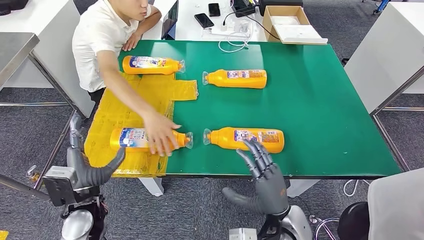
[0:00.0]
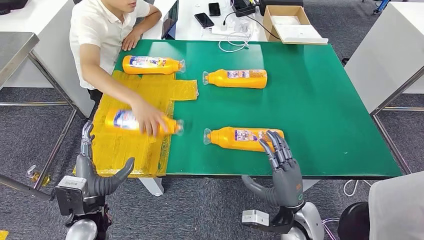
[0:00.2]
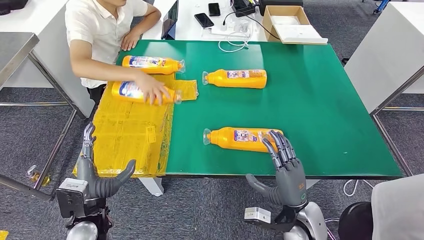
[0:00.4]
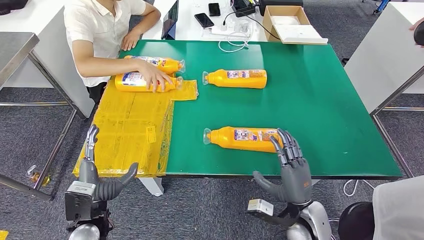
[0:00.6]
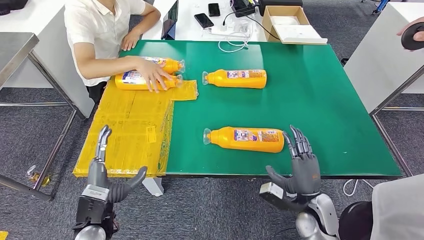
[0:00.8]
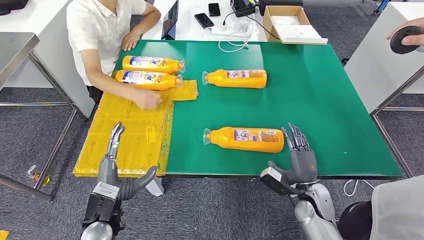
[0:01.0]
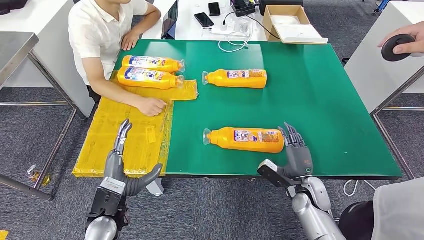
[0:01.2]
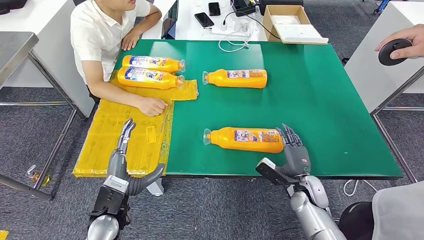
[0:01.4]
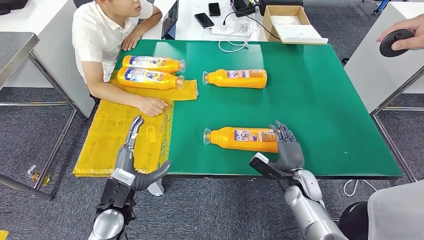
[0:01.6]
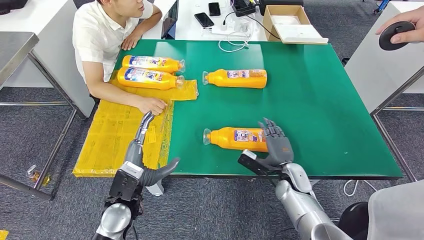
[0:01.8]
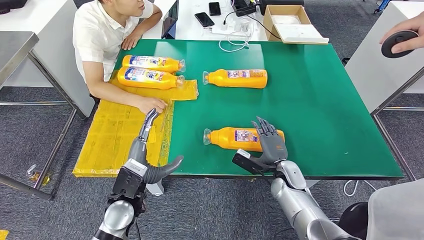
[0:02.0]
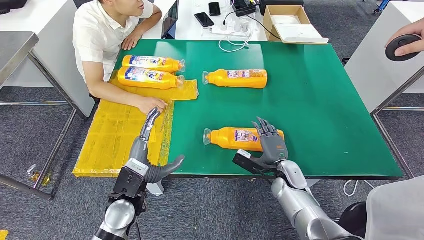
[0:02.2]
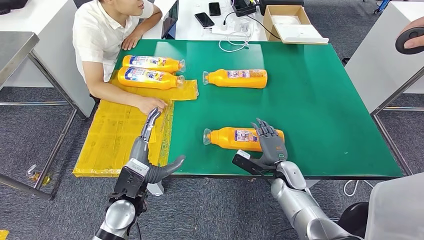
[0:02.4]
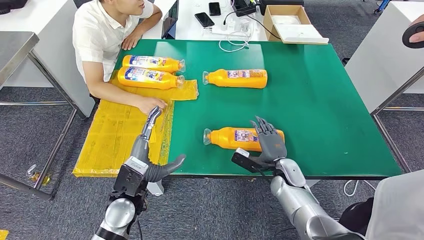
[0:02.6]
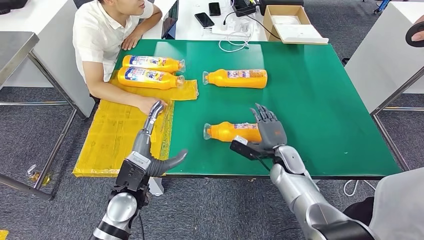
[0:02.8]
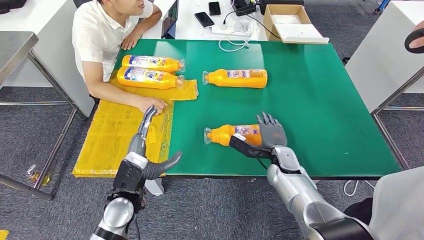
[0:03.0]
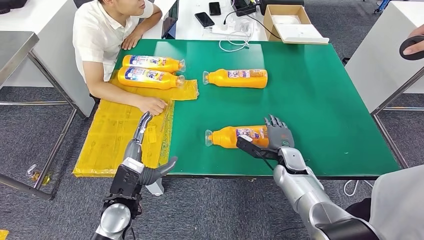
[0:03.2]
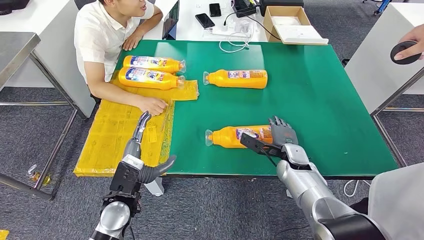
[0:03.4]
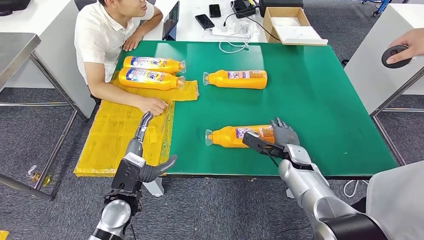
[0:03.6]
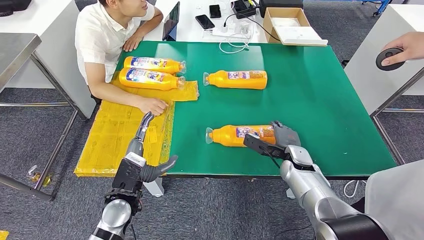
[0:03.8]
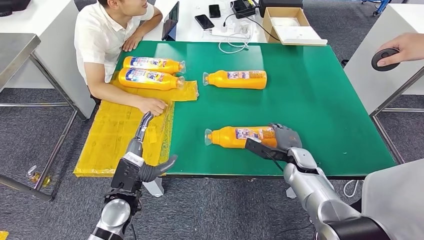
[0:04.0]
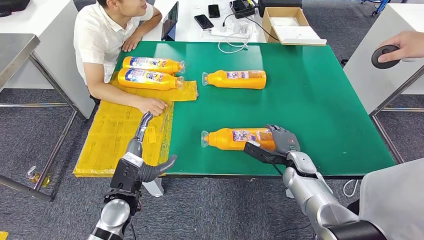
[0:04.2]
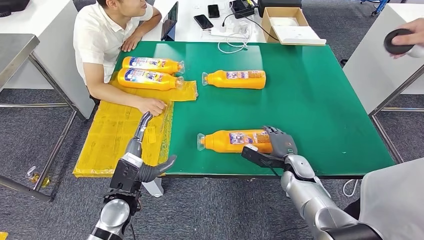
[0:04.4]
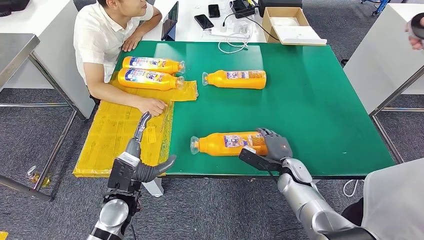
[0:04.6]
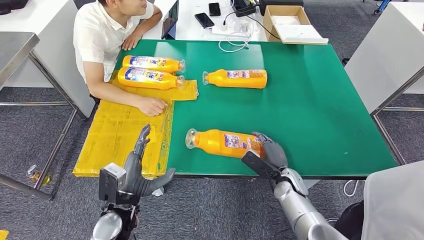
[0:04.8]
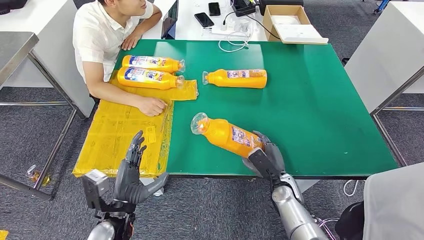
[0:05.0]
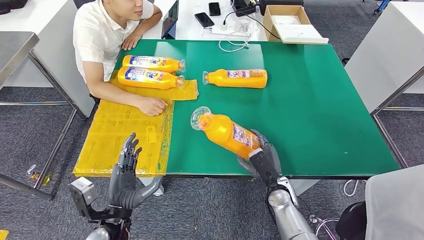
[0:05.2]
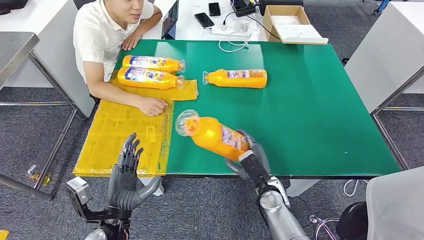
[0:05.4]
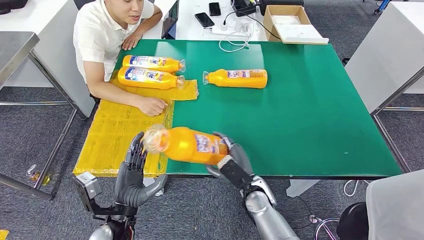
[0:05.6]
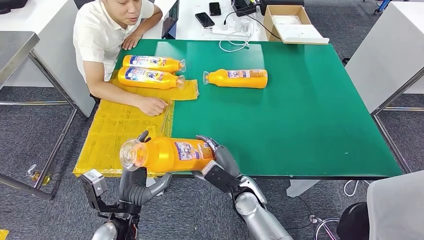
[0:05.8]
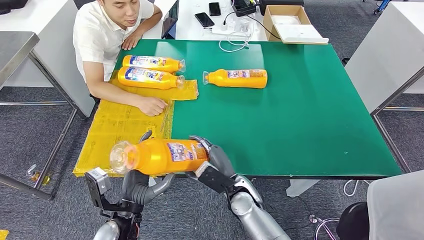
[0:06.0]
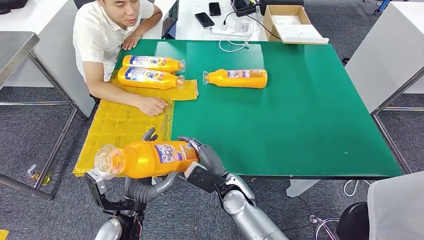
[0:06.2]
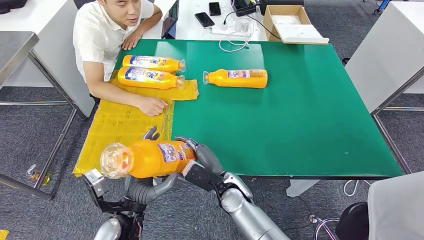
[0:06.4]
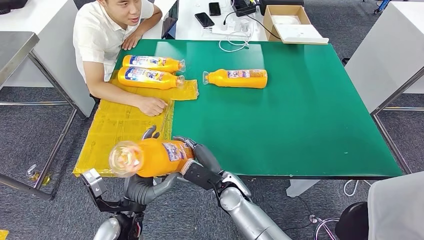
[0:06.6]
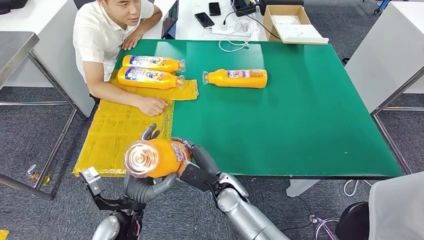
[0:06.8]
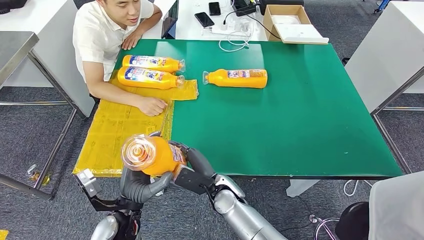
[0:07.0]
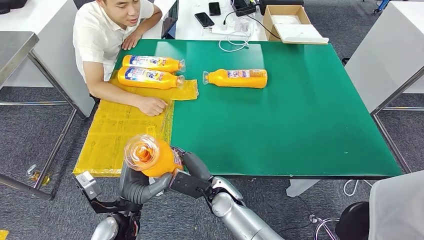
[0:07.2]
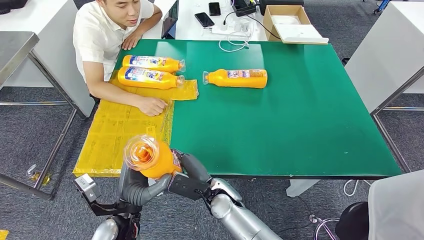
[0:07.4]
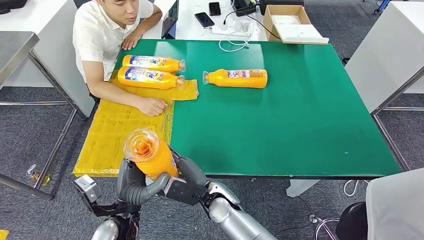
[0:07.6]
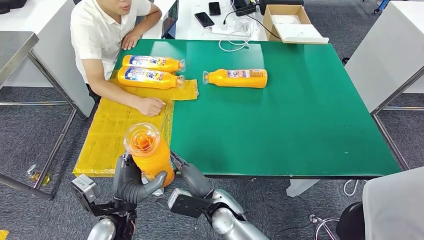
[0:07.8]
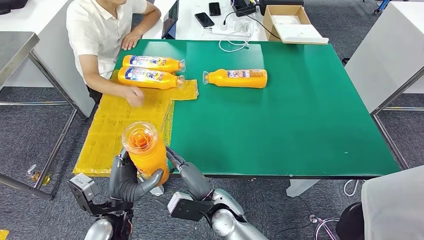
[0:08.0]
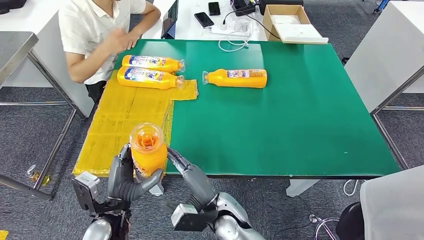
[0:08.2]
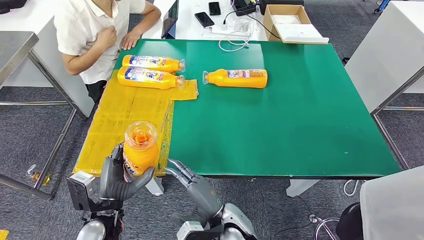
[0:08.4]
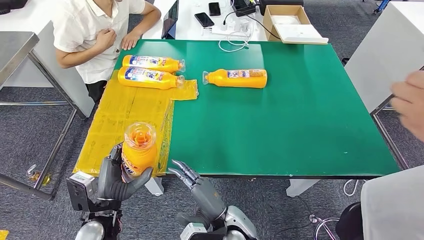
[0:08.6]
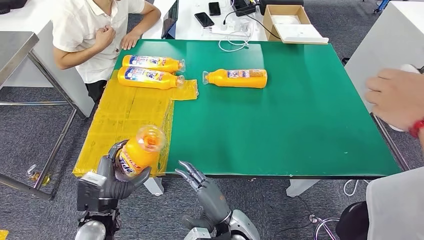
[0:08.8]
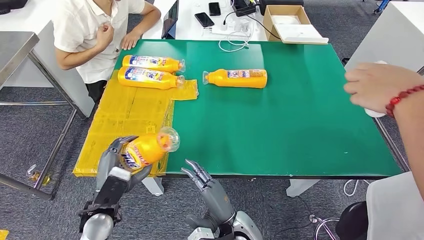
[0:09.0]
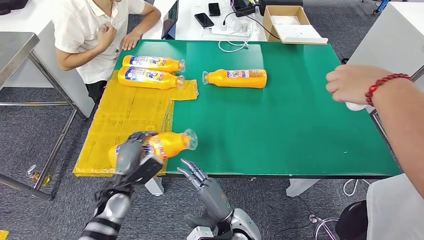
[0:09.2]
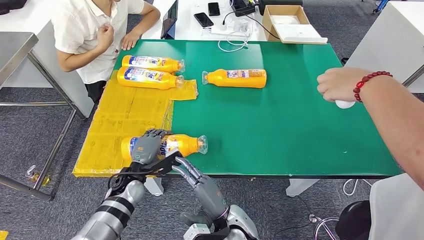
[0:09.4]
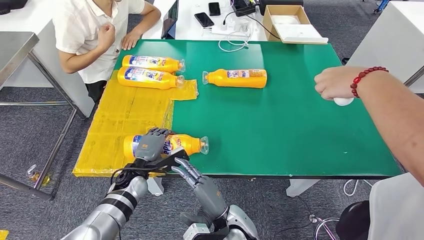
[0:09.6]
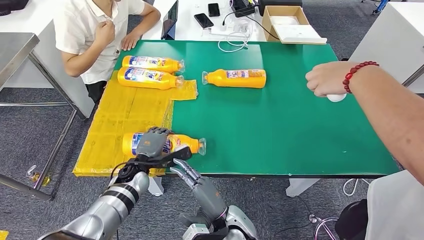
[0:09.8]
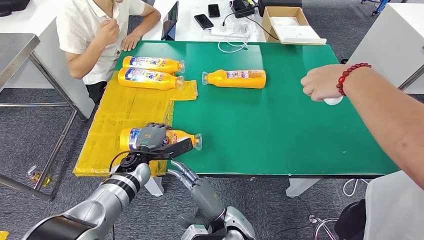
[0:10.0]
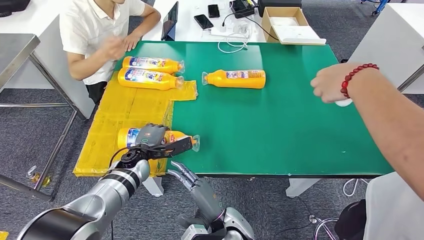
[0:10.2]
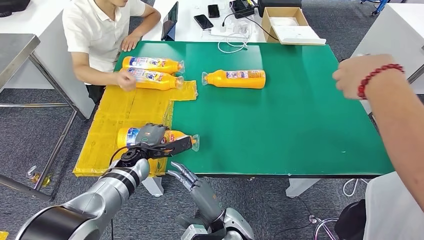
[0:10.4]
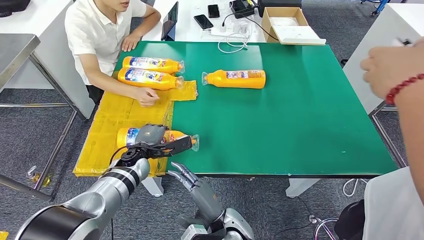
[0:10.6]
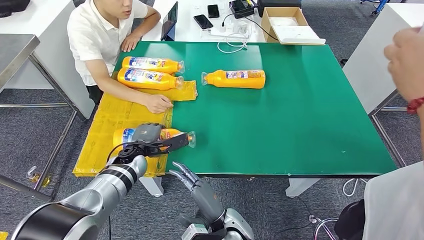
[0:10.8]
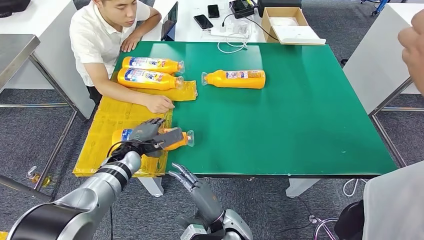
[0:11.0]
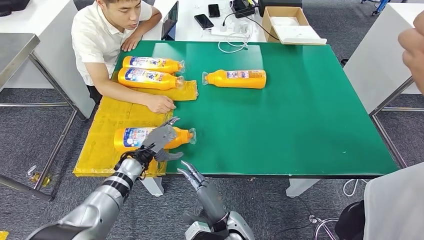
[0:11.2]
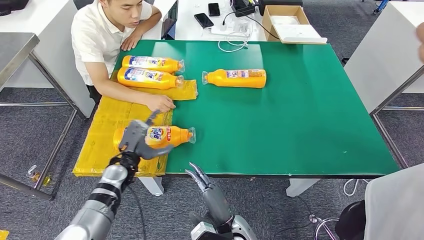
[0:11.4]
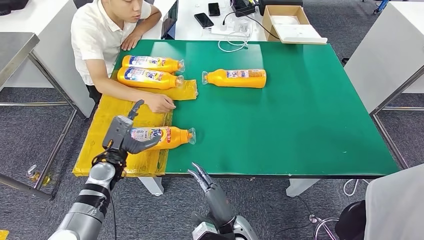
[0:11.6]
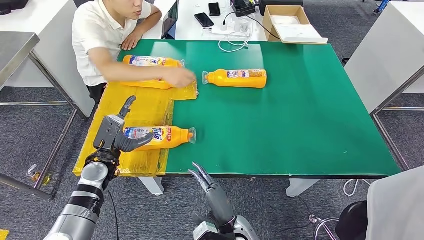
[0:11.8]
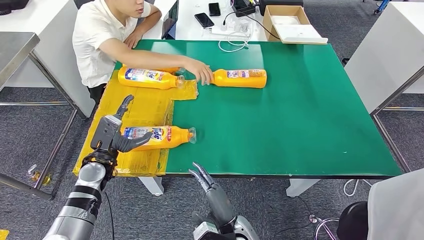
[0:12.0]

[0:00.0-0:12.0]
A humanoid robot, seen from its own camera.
Step, 0:00.0 to 0:05.2: Pick up the fast-moving consumer goods bottle from the table.
0:01.6 to 0:03.0: The right hand moves forward and to the left, about 10 cm.
0:03.0 to 0:04.4: The hands make only small movements.
0:06.0 to 0:07.6: The right hand shifts approximately 5 cm to the left.
0:07.6 to 0:09.0: The right hand goes roughly 10 cm backward and to the right; the left hand goes some 5 cm to the left.

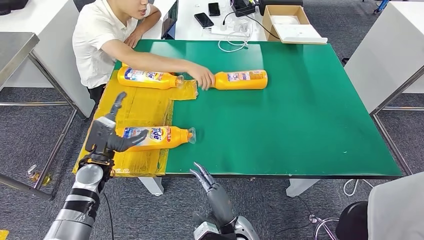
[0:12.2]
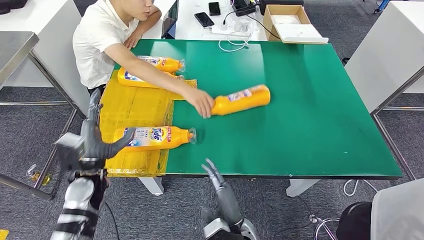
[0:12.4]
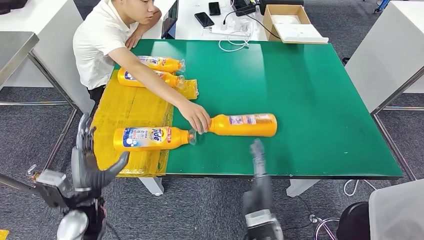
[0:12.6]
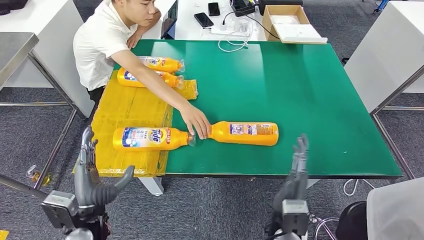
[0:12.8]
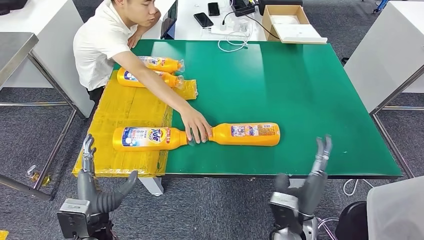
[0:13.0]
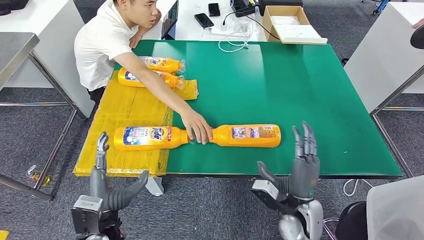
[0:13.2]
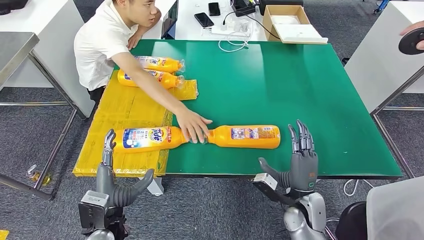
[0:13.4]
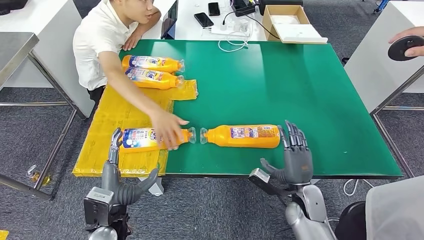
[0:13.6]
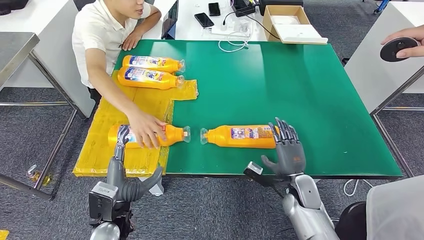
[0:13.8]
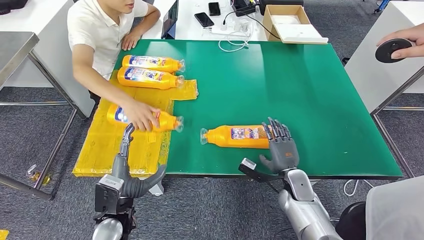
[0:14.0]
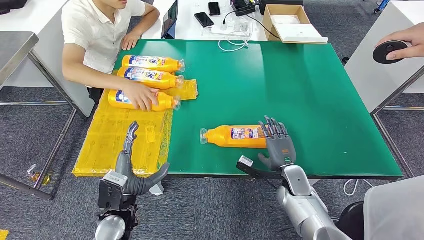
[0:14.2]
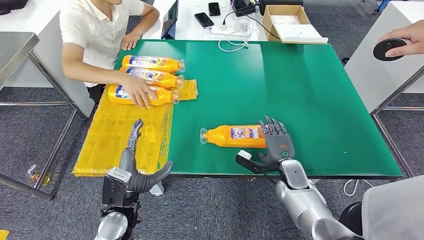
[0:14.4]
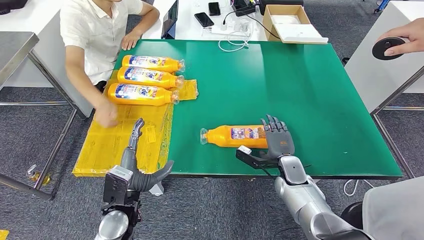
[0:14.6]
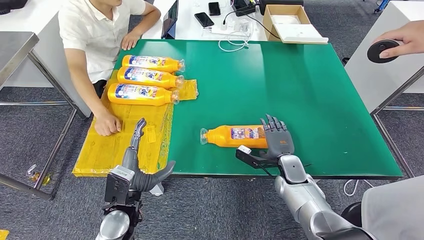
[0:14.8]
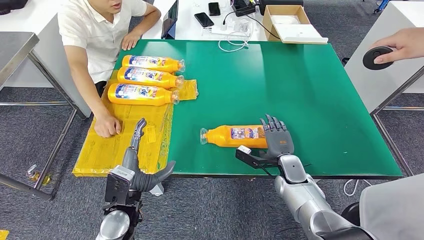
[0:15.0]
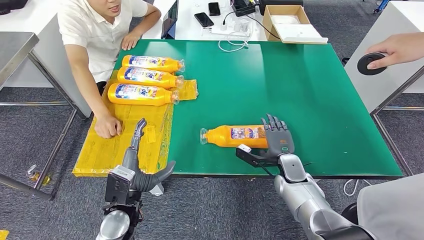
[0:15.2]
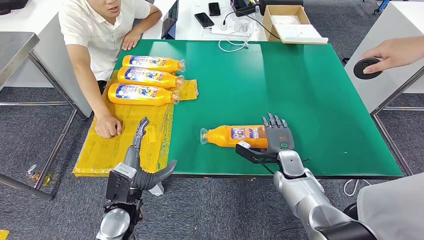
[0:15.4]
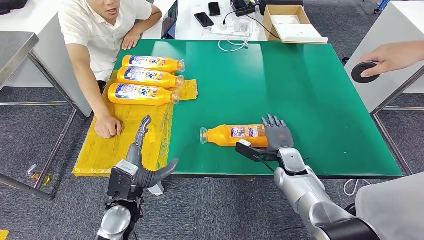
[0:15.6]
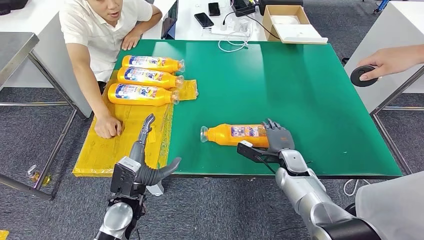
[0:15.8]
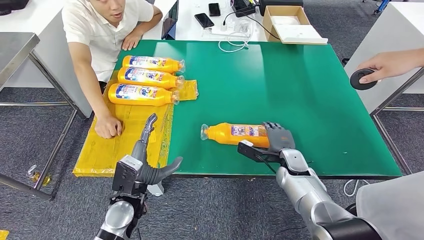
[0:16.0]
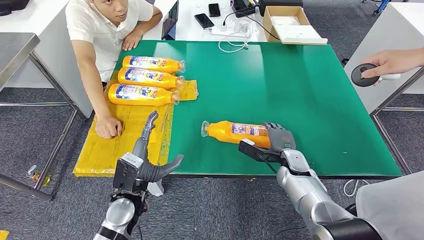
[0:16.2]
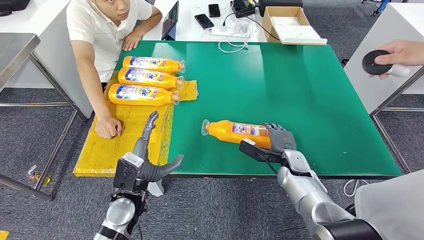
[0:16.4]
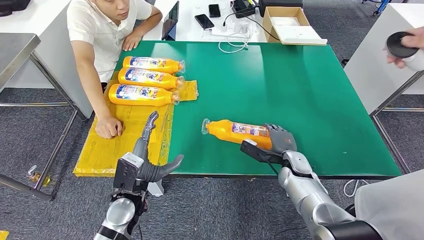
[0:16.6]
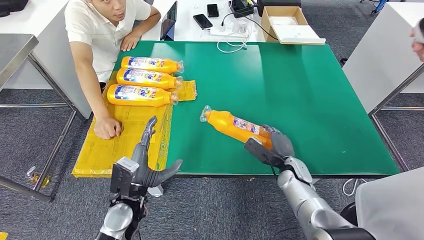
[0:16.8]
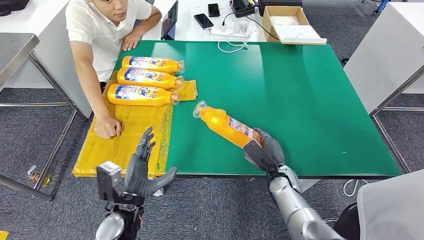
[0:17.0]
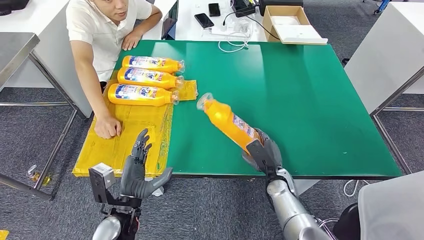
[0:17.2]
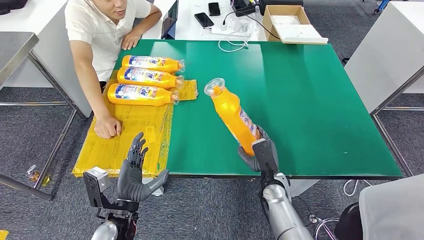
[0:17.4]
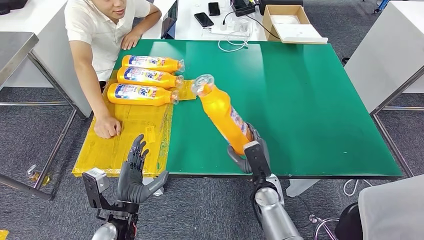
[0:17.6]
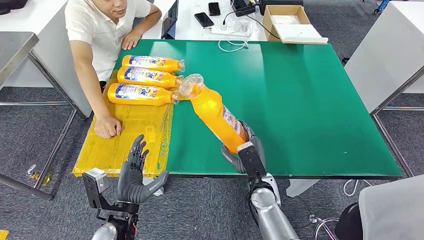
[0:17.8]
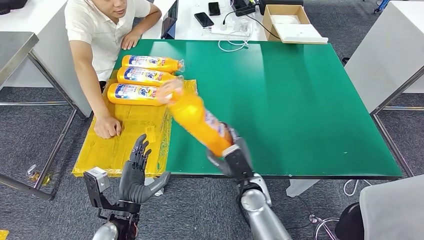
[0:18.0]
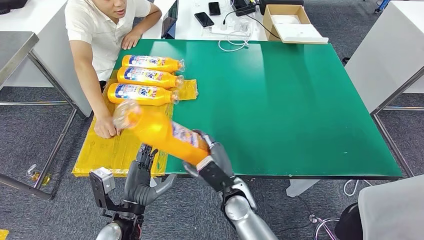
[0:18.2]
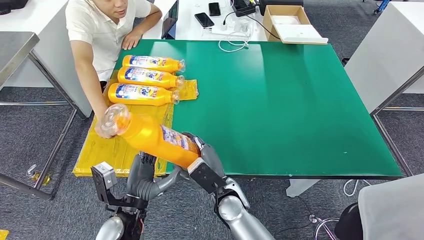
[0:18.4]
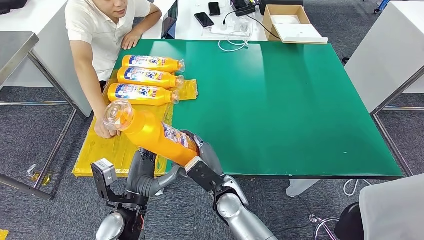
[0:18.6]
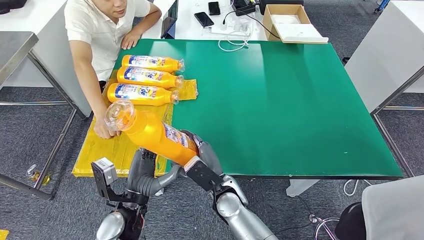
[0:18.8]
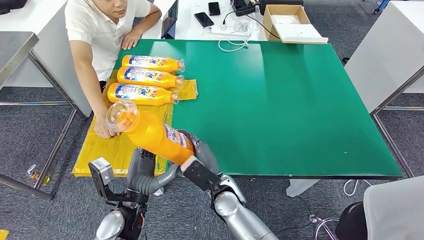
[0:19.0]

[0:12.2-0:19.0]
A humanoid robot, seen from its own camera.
Step, 0:13.8 to 0:18.0: Pick up the fast-moving consumer goods bottle from the table.
0:15.0 to 0:16.2: The hands stay close to where they were, moving slightly.
0:16.2 to 0:17.6: The right hand goes some 15 cm to the left and backward, while the left hand is displaced backward by approximately 5 cm.
0:17.6 to 0:19.0: The right hand goes about 10 cm to the left.
